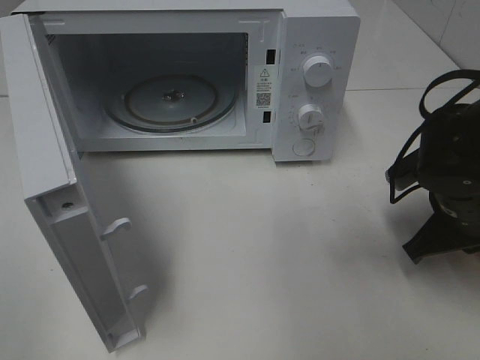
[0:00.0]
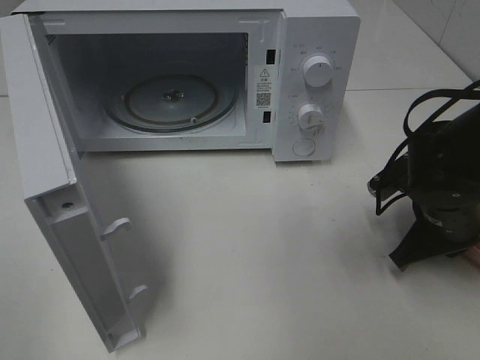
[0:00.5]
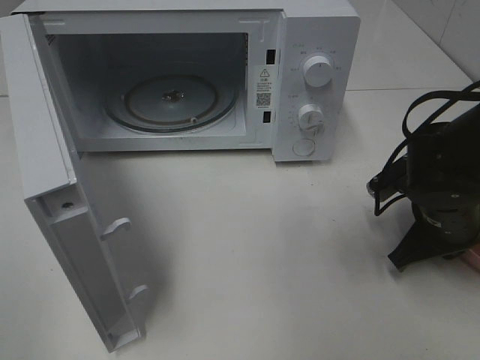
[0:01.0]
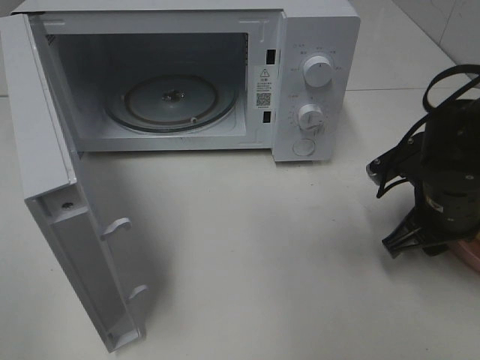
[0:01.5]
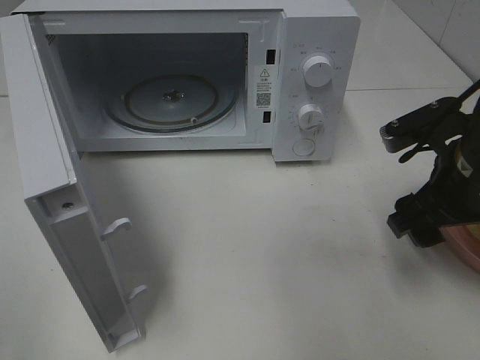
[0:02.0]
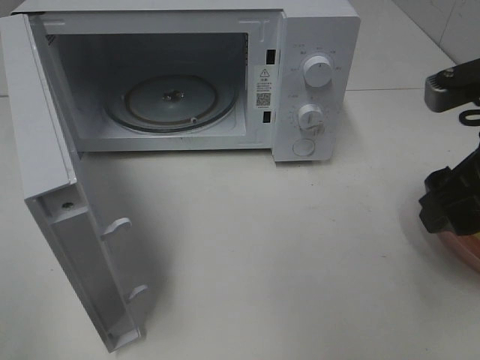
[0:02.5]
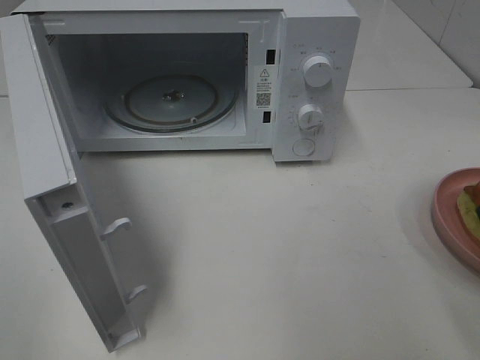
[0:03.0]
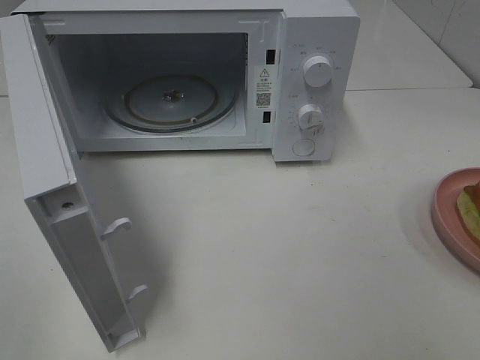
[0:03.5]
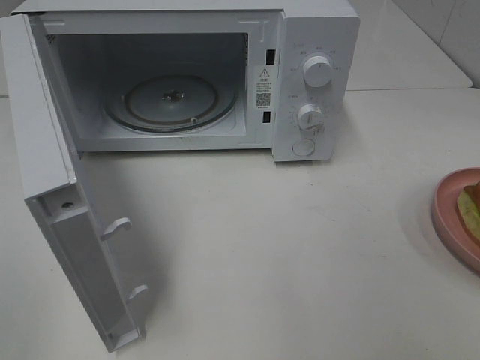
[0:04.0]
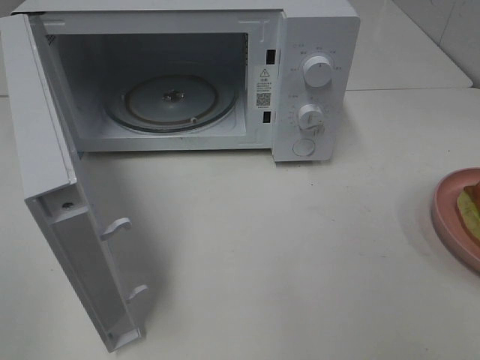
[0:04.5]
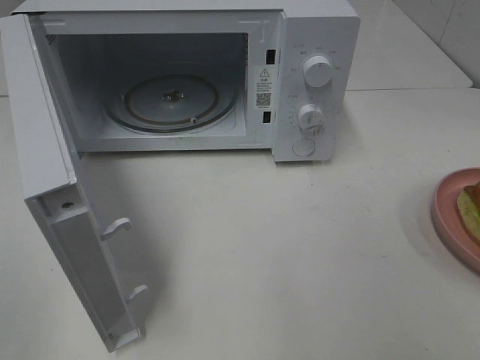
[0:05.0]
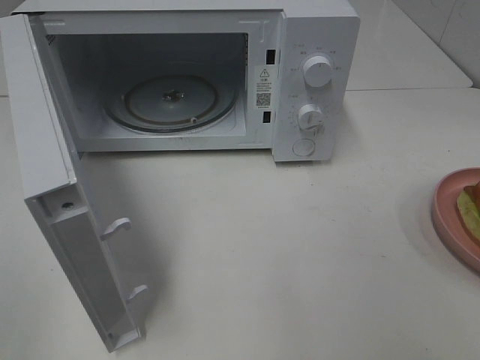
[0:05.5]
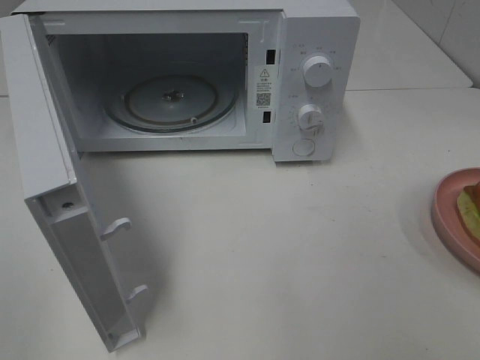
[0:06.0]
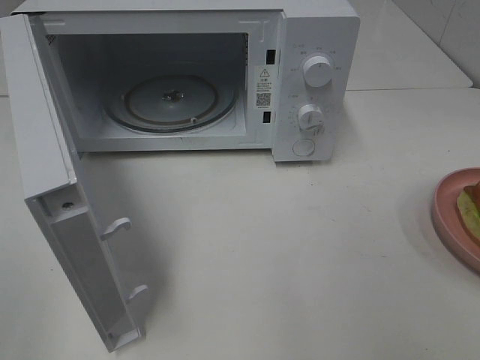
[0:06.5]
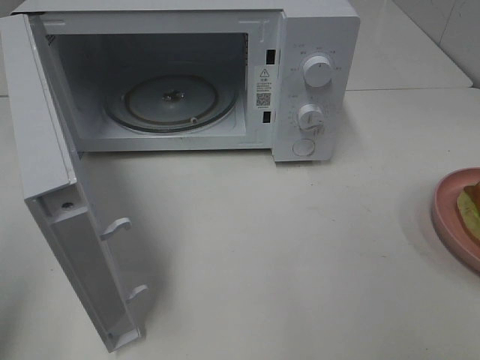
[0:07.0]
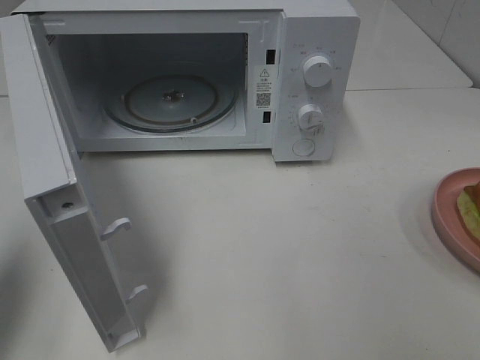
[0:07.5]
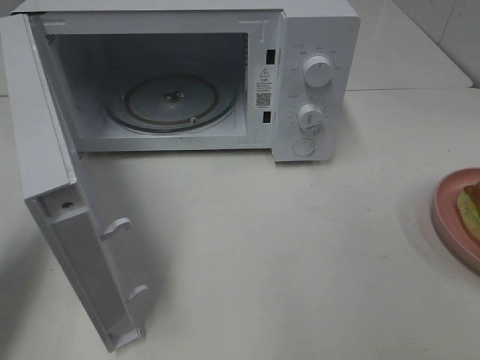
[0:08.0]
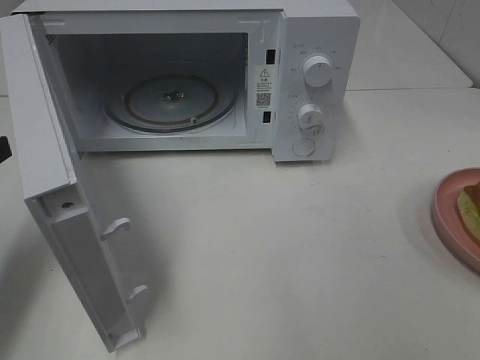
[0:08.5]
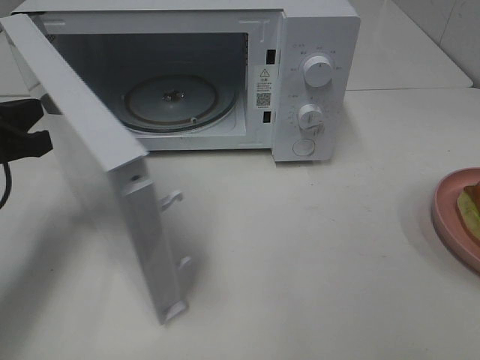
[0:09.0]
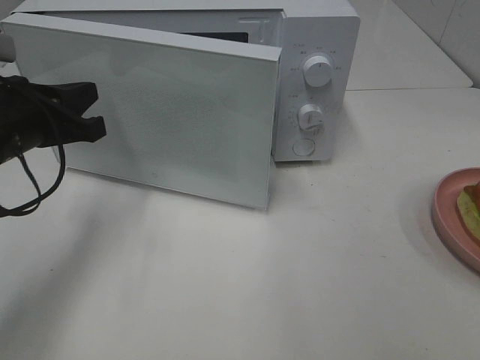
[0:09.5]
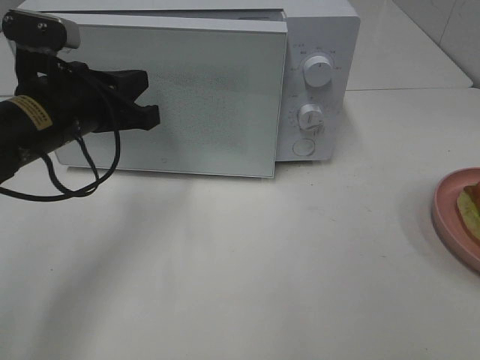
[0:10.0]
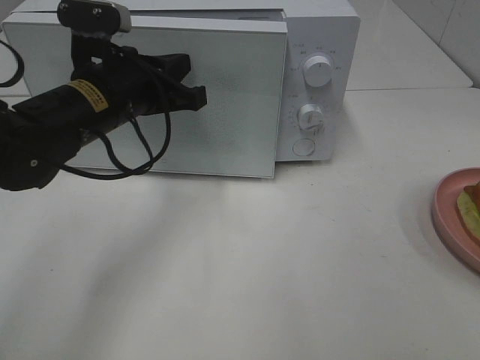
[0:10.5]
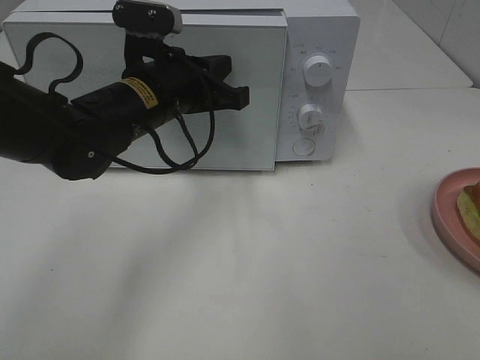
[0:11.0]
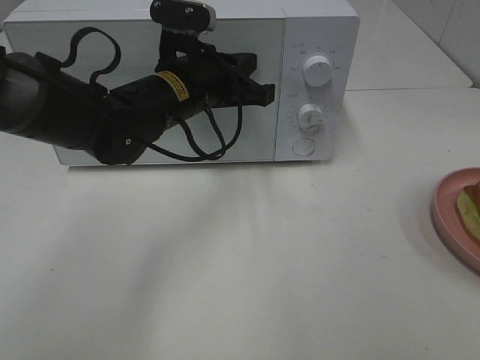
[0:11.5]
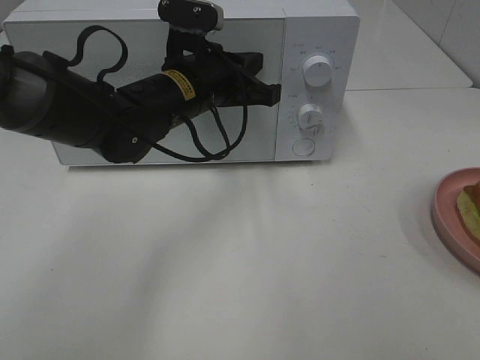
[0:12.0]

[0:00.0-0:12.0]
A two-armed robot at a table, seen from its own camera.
Task of the whole recording: Heat Sandwich.
Step, 0:00.0 to 0:02.5: Right hand: place the plate on the table.
0:00.0 to 0:02.0: The right gripper travels upward by about 5 cm, and opens.
0:02.0 to 0:04.0: The right gripper travels backward and upward by about 25 cm.
0:06.0 to 0:08.0: The left gripper moves forward, about 20 cm, and closes up.
0:08.0 to 0:10.0: The left gripper moves to the right and forward, about 15 cm.
0:10.0 to 0:12.0: The left gripper goes approximately 15 cm to the right and forward.

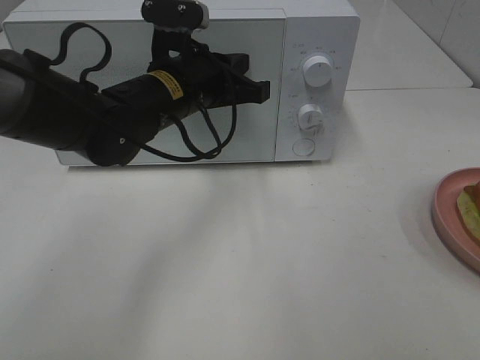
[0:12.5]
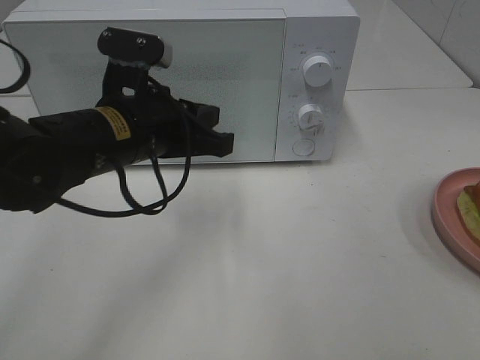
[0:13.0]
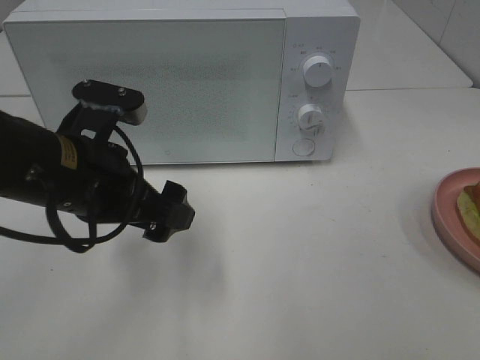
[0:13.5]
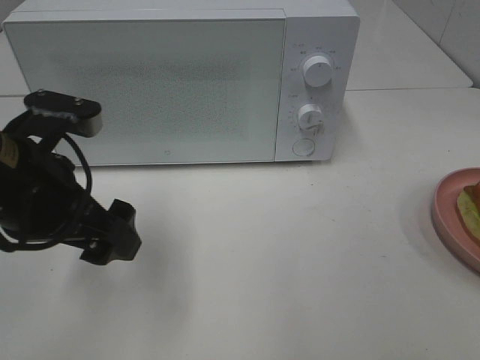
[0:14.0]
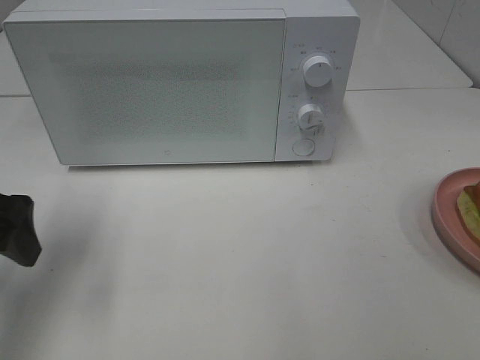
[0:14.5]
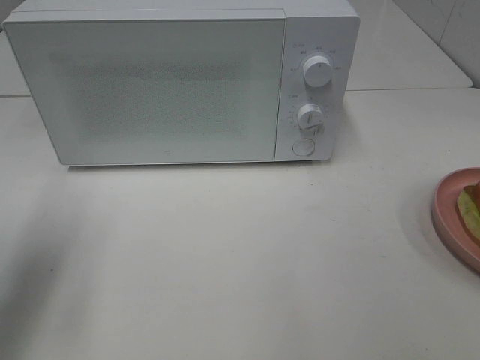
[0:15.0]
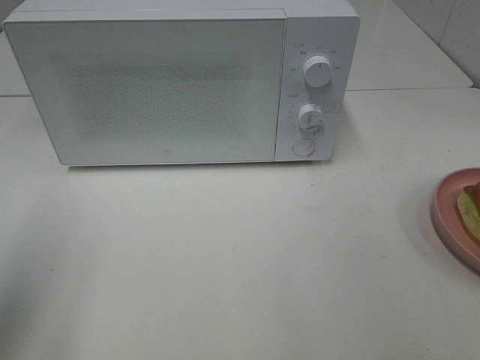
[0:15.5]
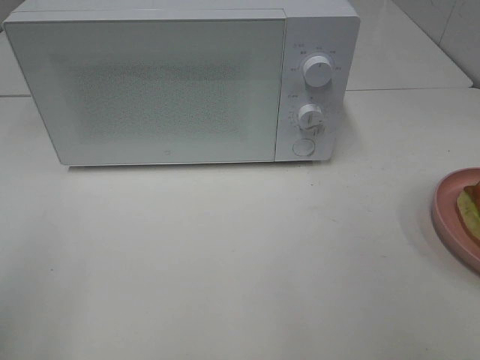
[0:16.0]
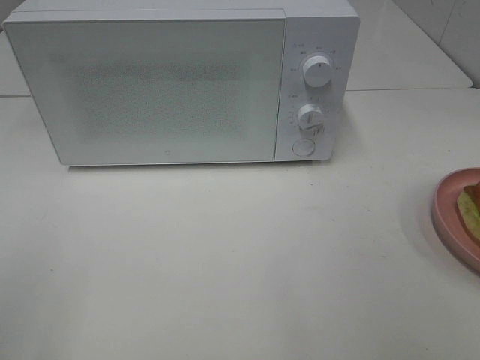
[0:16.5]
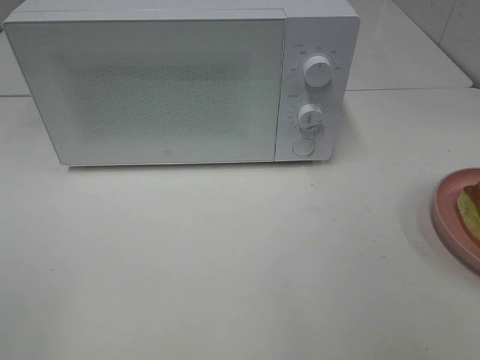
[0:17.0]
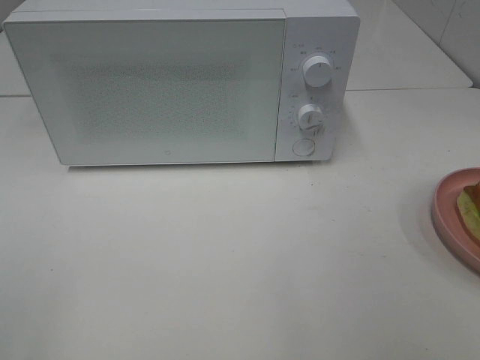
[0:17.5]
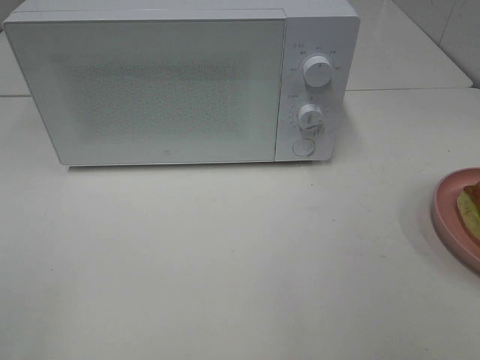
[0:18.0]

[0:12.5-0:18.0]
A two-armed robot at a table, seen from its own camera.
Task of the whole recording: Heat Sandwich.
0:12.5 to 0:14.5: The left gripper moves to the left and backward, roughly 25 cm, and opens.
0:14.5 to 0:16.0: The left gripper heads backward and upward, covering approximately 15 cm.

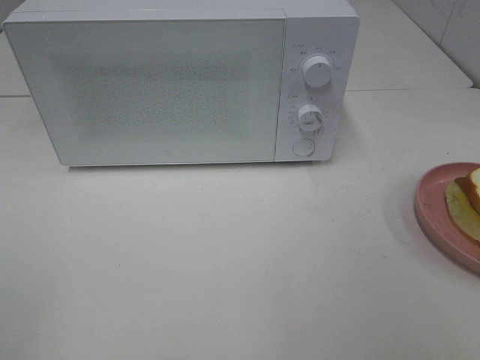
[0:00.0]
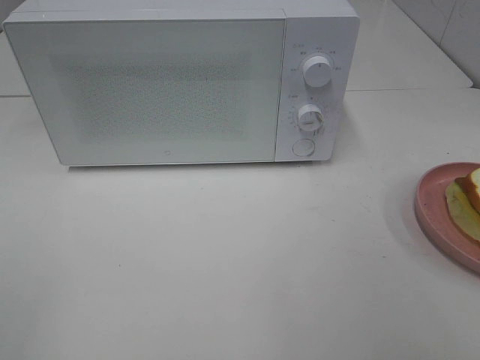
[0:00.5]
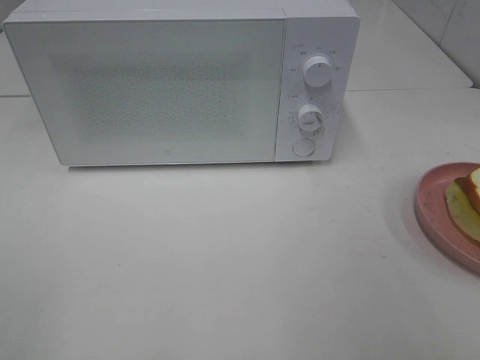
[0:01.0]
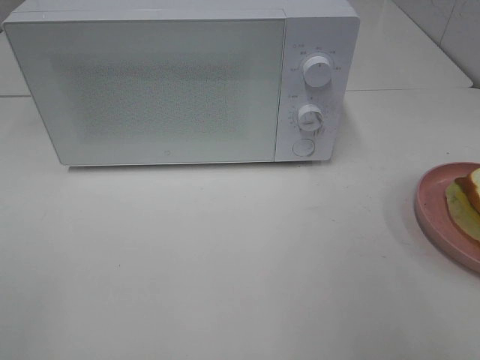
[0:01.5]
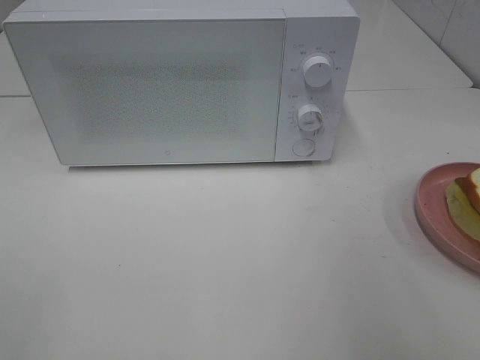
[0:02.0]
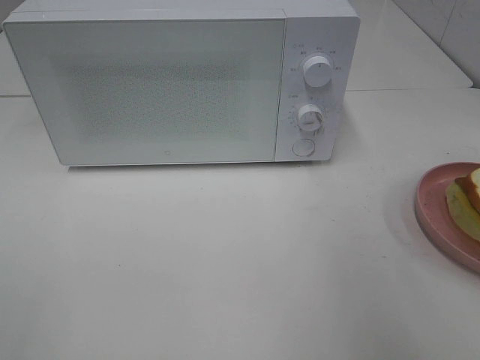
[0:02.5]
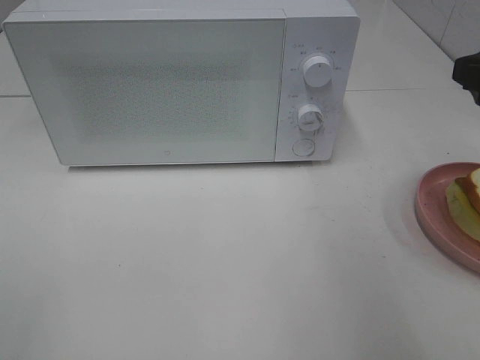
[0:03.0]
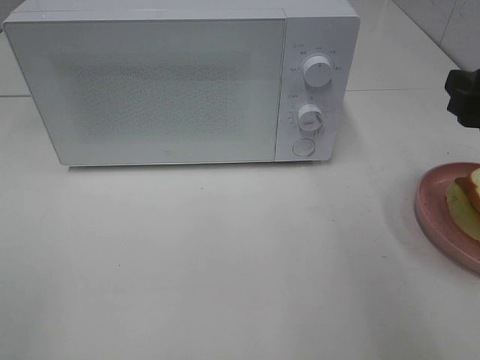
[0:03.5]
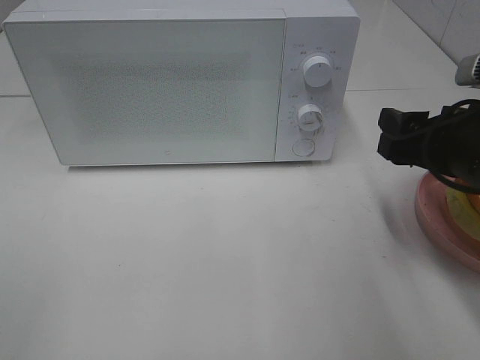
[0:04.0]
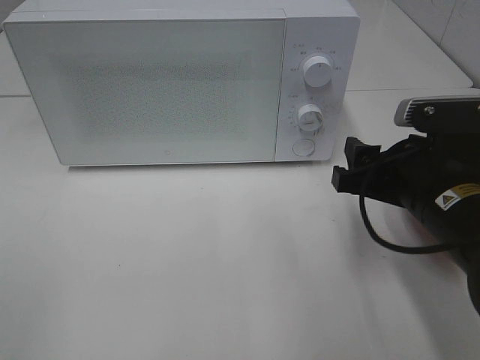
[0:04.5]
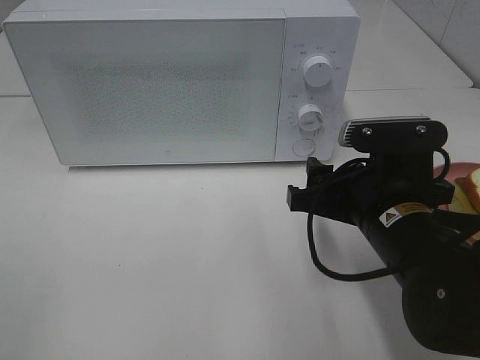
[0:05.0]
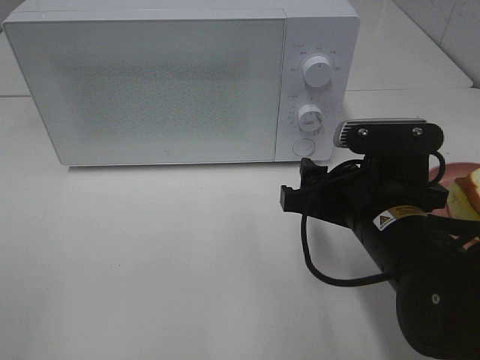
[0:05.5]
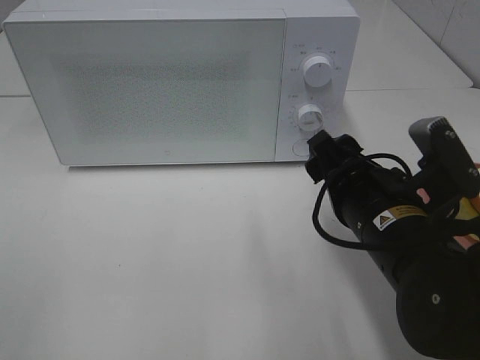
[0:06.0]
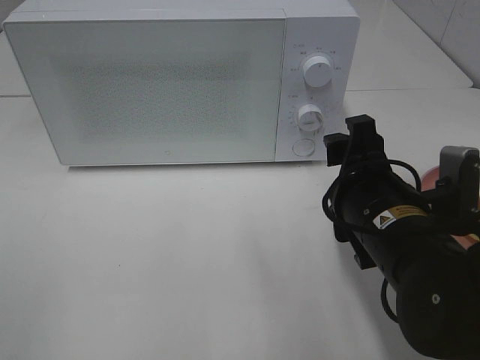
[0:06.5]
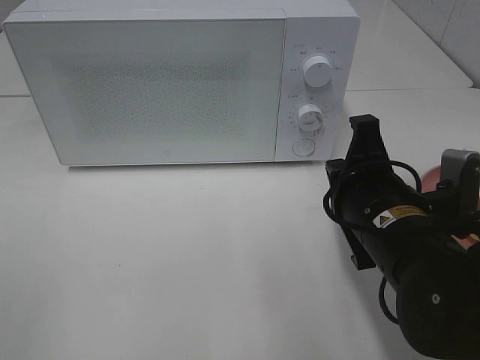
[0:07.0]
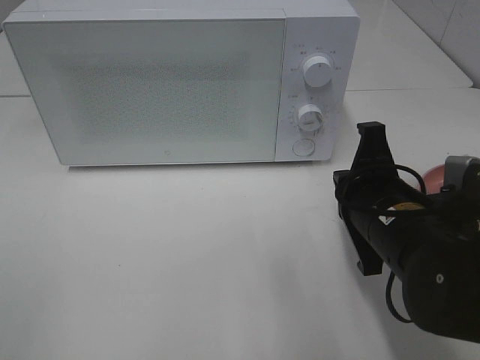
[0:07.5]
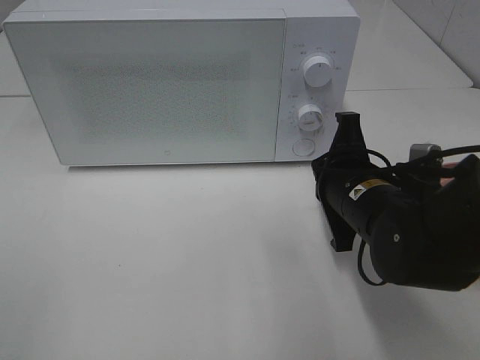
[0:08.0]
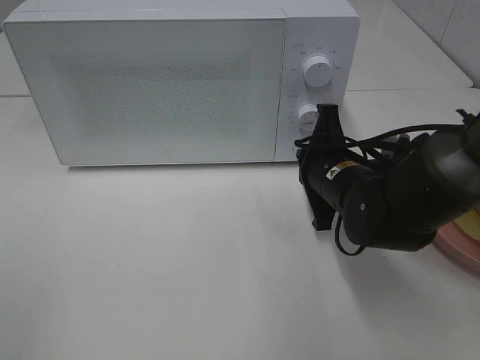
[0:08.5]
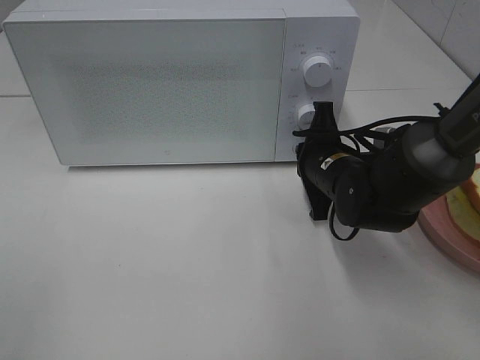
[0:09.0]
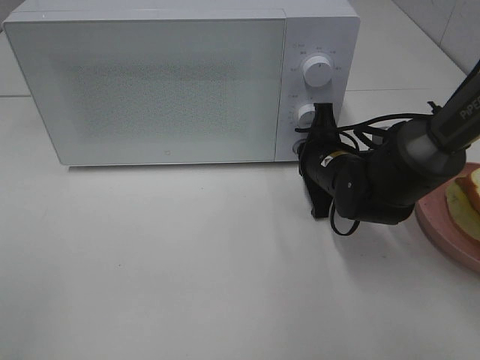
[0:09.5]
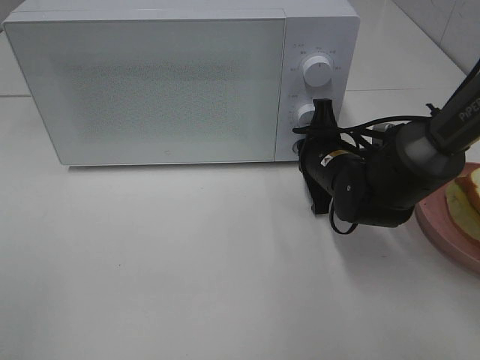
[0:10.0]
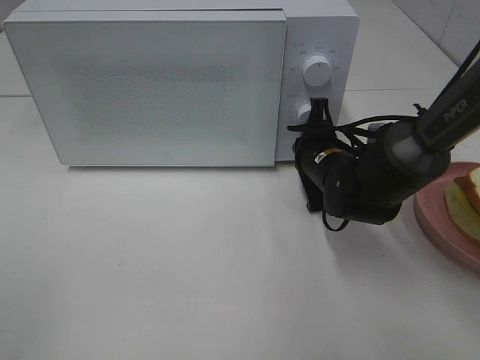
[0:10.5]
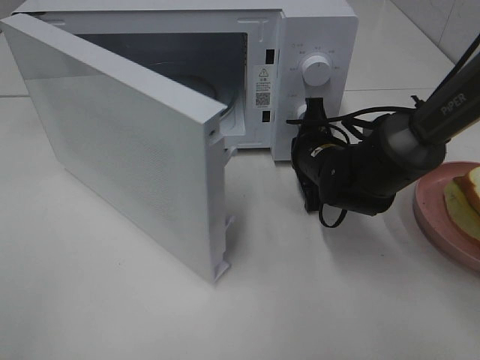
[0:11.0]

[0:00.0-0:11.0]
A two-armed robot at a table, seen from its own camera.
Task of the whole recording: Heat Sandwich.
0:02.0 to 0:03.5: The right gripper goes roughly 10 cm forward and downward.
0:03.5 to 0:05.5: The right gripper shifts roughly 15 cm to the left and downward.
0:05.5 to 0:07.5: The right gripper closes its fingers.
0:07.5 to 0:09.0: The right gripper goes some 10 cm forward.
